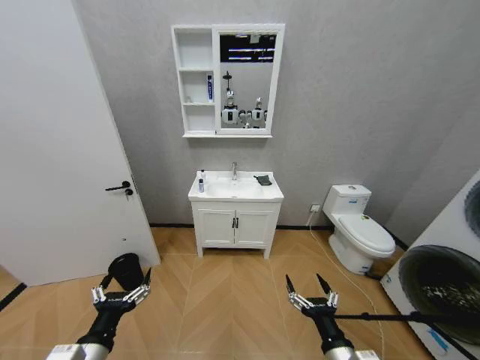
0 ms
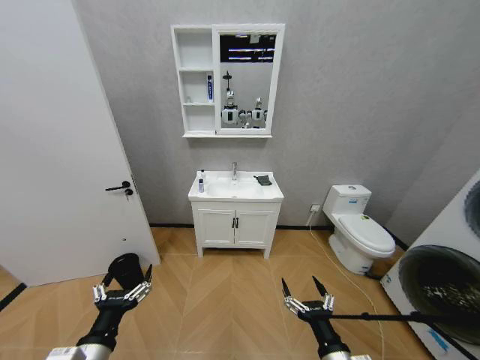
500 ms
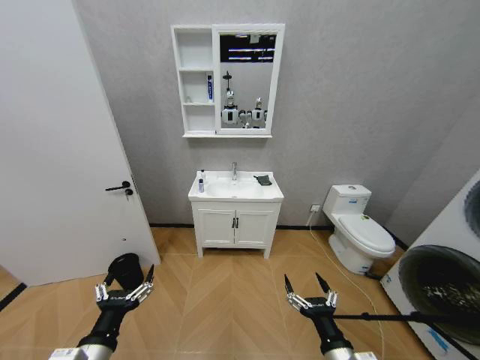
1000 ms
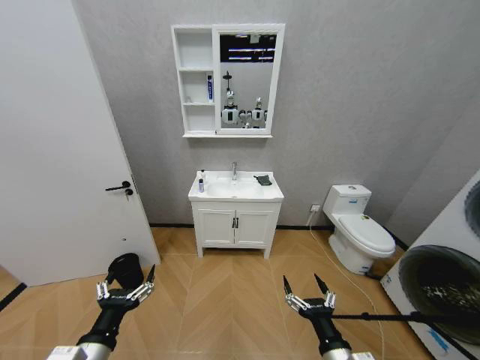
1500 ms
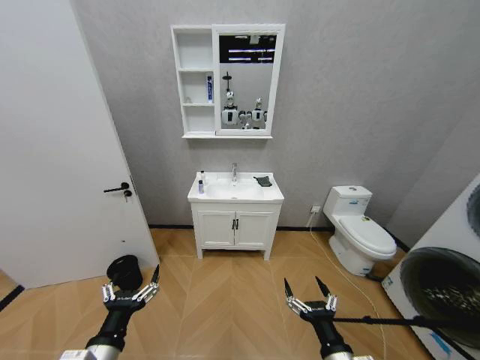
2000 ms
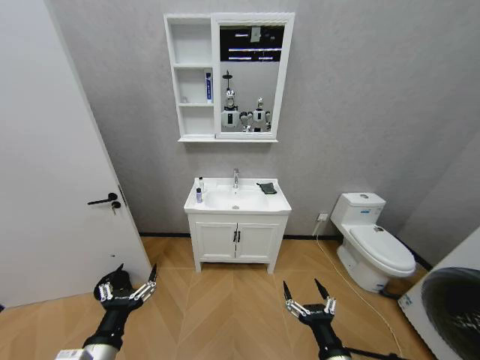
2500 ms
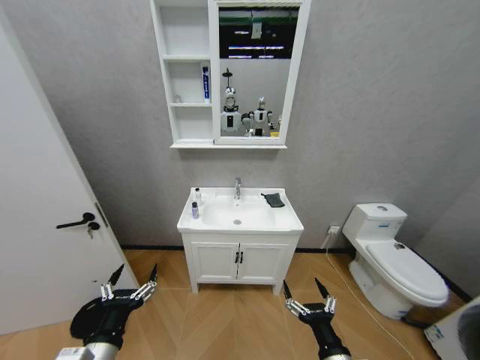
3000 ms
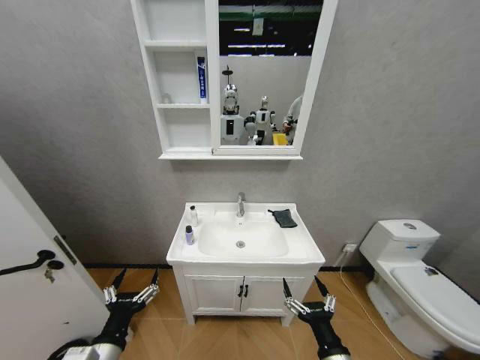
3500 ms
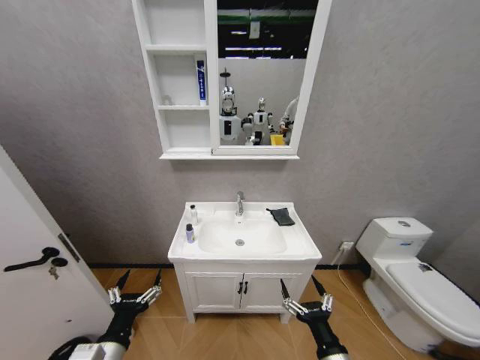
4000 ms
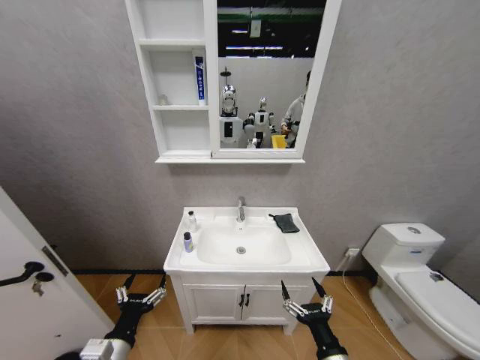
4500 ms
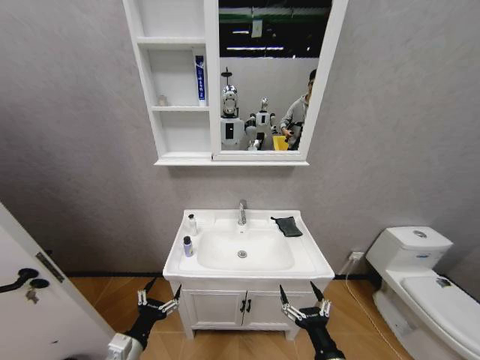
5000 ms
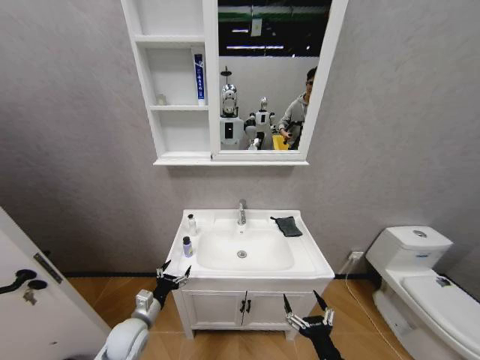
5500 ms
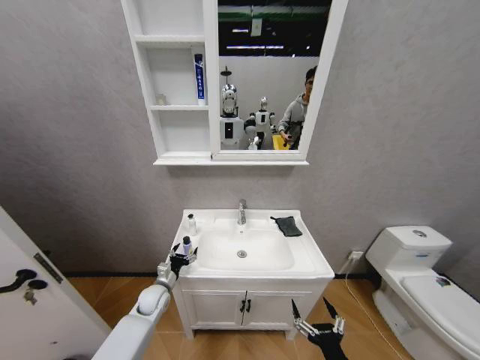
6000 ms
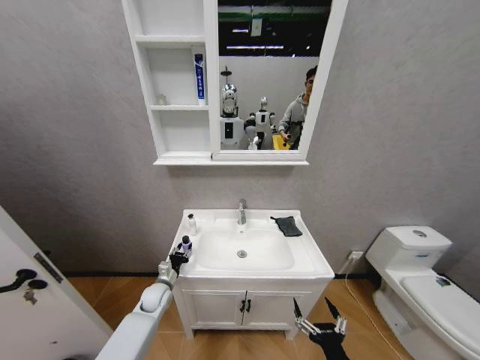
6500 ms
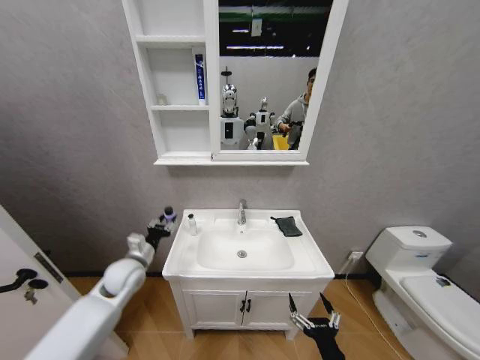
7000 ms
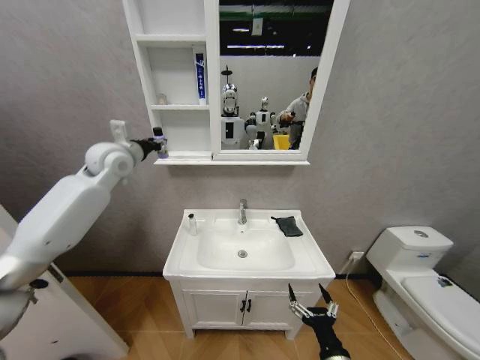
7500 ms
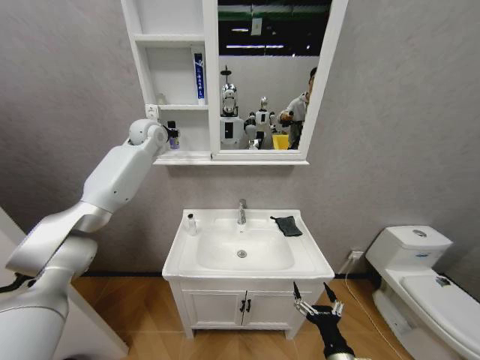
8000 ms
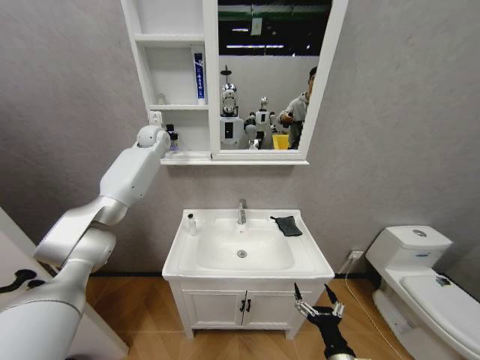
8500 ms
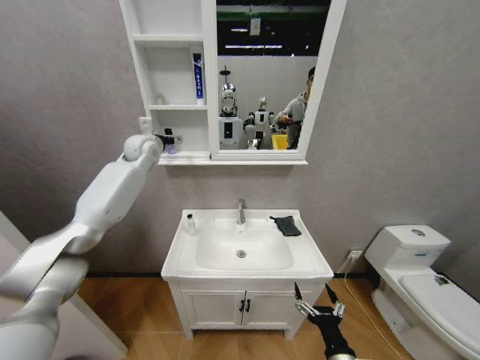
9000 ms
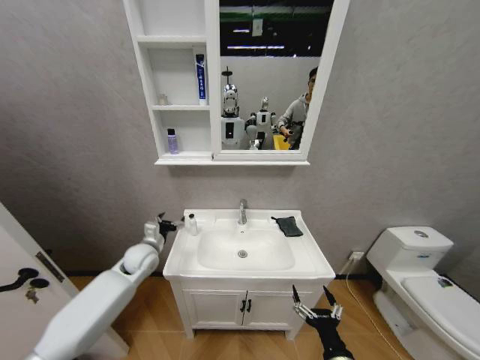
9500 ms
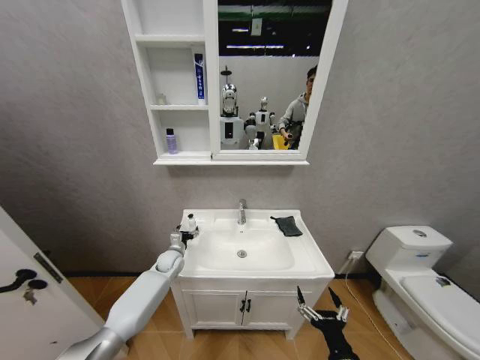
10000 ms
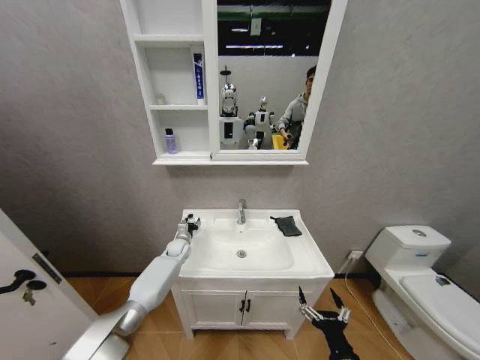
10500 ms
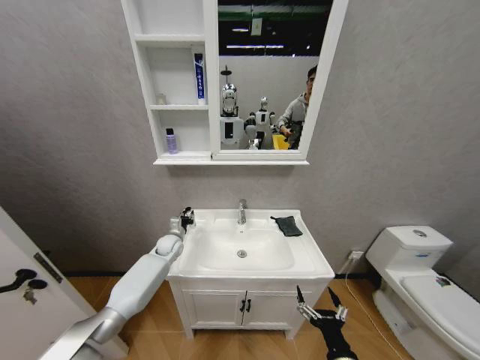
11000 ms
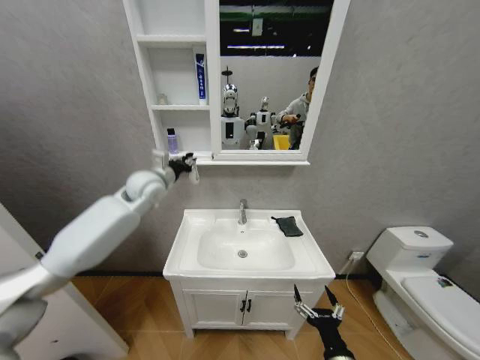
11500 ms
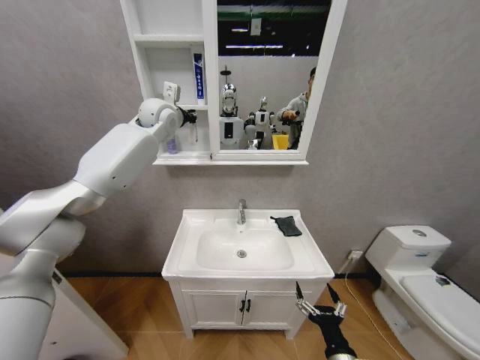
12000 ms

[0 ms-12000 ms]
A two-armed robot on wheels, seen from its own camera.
Task of the whole recording: Move facial cleanser and shampoo from washbasin to cabinet, then wipe washbasin with towel.
4000 ms to 6000 ms: The left gripper travels forward and downward by approximately 30 cm.
6000 ms to 8000 ms: The left gripper is displaced upward and forward by approximately 50 cm, and closes its fingers.
8000 ms to 10000 ms: The left gripper is displaced downward by some 50 cm, and opens its fingers.
10000 ms to 12000 ms: The left gripper is displaced upward by approximately 50 cm, and closes up.

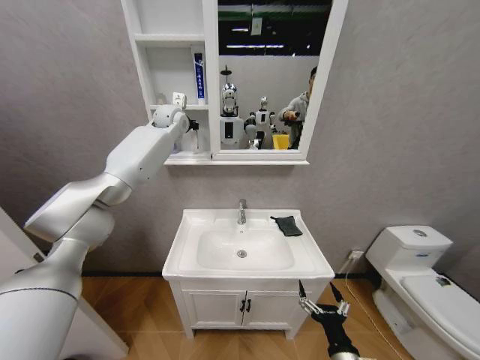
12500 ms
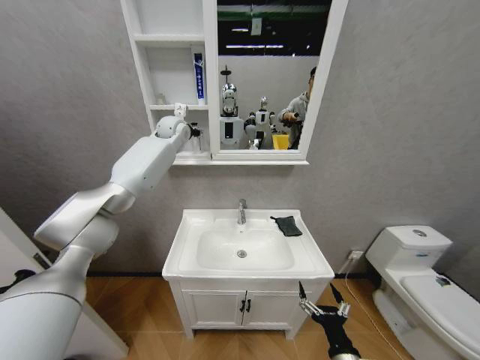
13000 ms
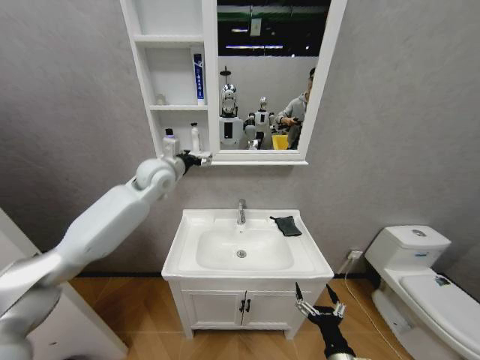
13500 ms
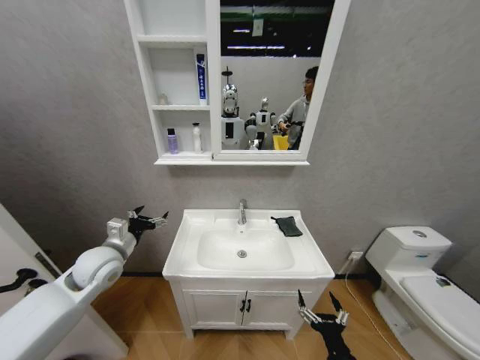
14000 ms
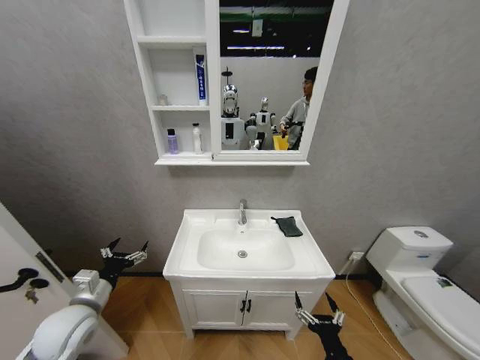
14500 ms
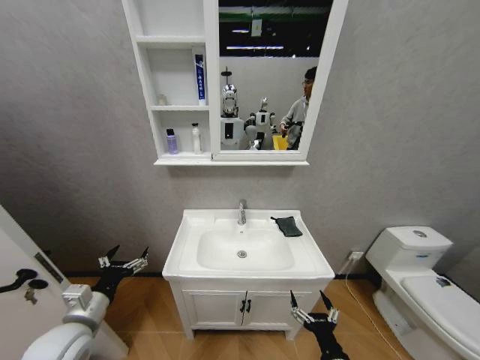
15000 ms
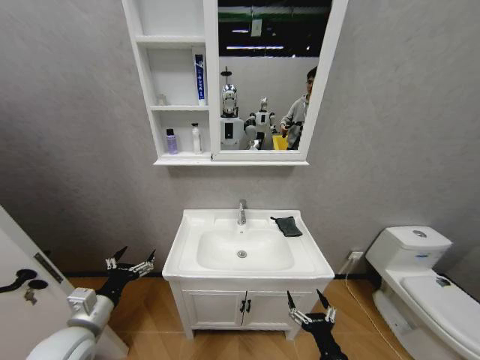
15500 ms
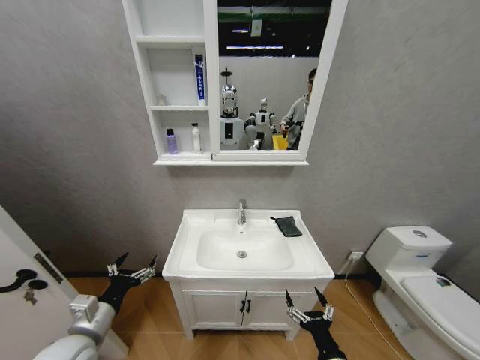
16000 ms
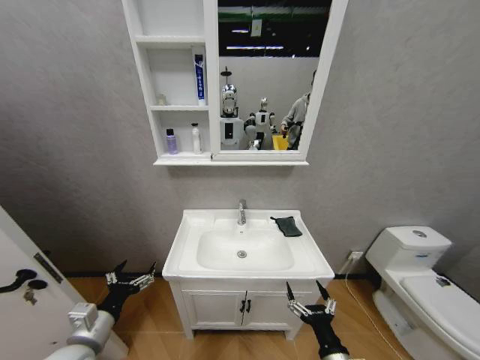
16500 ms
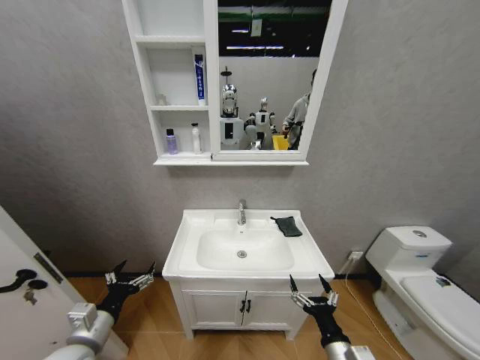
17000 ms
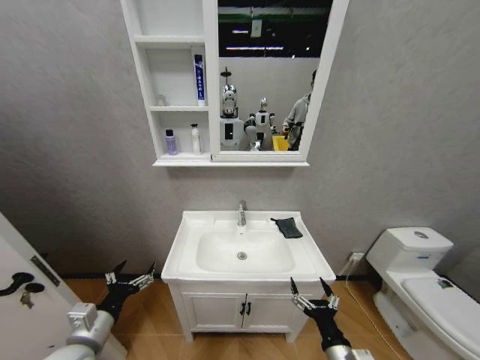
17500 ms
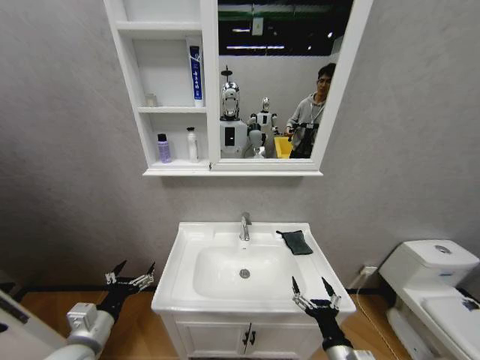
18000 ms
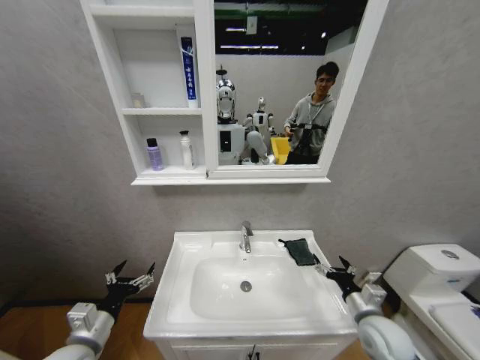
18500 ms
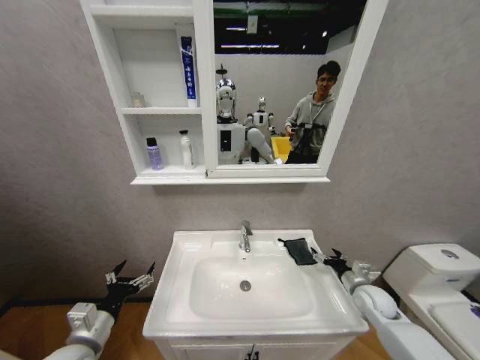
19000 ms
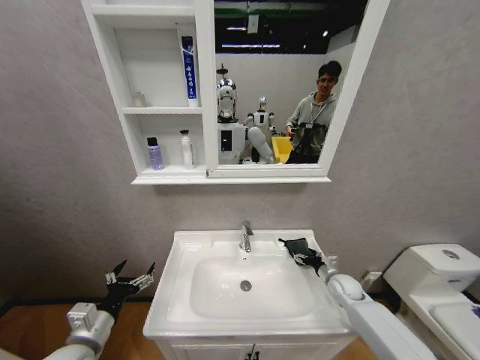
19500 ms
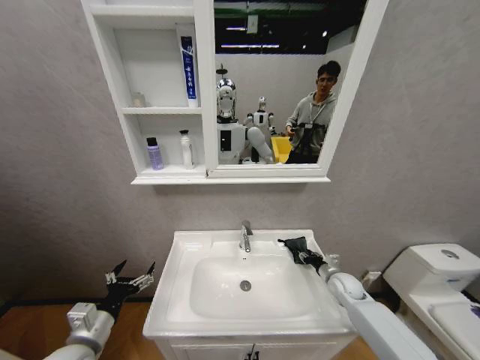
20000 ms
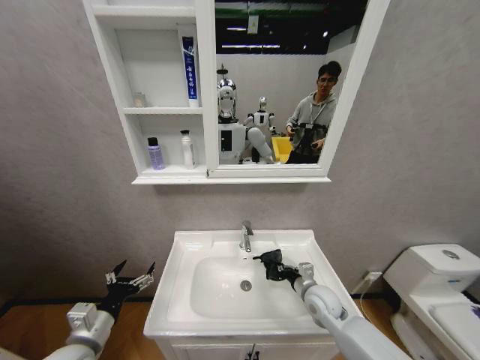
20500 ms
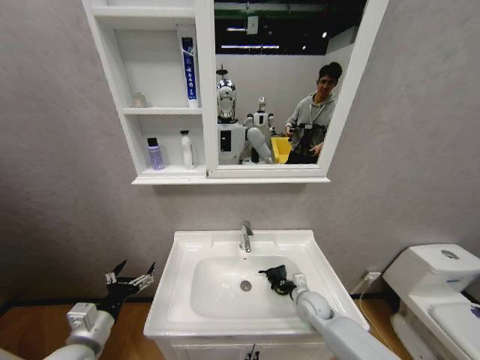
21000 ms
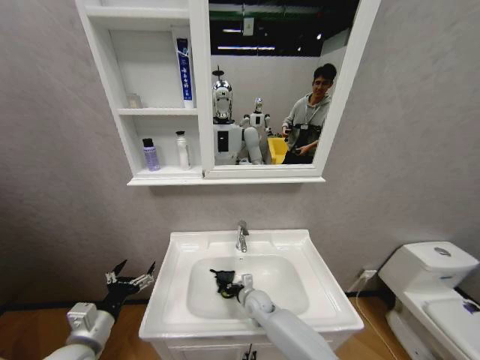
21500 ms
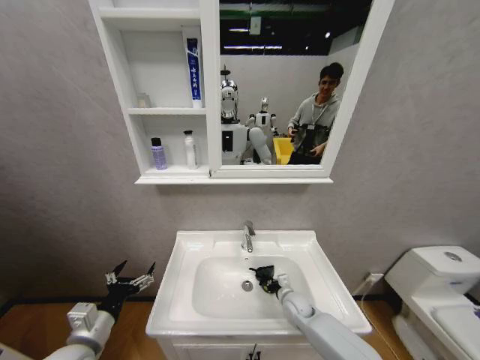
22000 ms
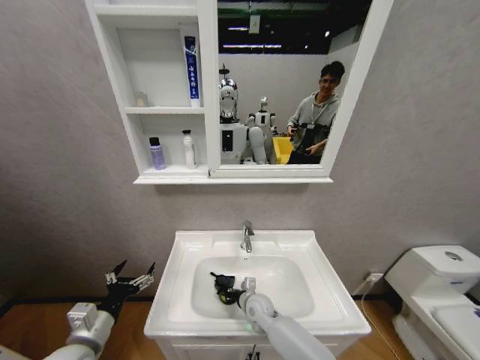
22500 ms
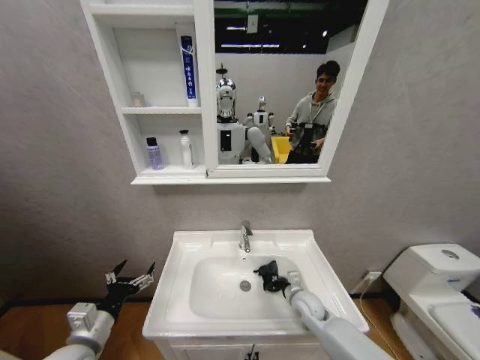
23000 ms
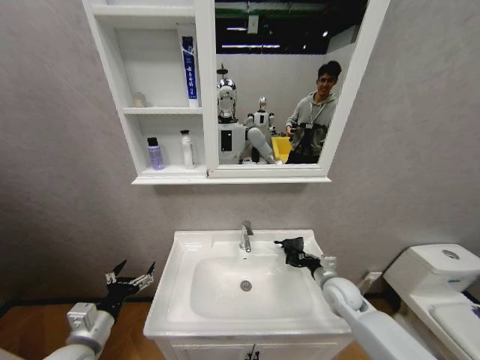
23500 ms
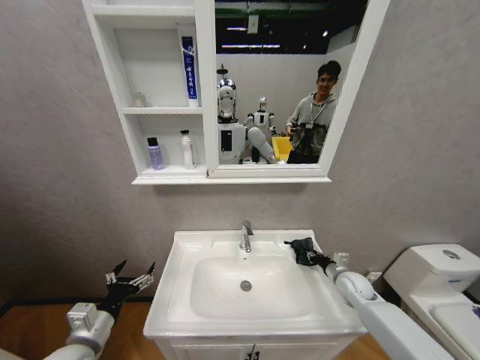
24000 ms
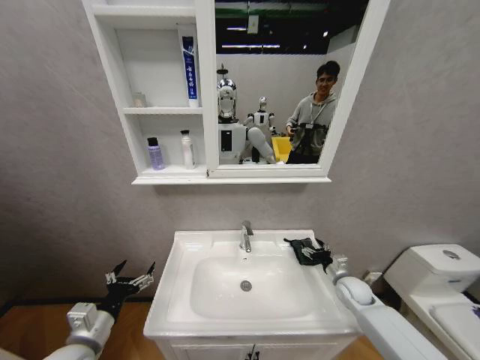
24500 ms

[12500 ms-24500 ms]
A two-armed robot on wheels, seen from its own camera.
Task of the whole recording: Move facial cleanser and shampoo from washbasin to cabinet, then wipe washbasin with towel.
12500 ms to 14500 ms: The left gripper moves backward, downward and to the left, about 60 cm, and opens.
14500 ms to 16500 ms: The left gripper goes some 5 cm backward.
16500 ms to 18500 ms: The right gripper travels forward and to the right by roughly 20 cm.
18500 ms to 20500 ms: The right gripper heads to the left and forward, covering approximately 15 cm, and closes up.
20500 ms to 22500 ms: The right gripper goes left and right, approximately 20 cm each way, reversing 2 times.
22500 ms to 24500 ms: The right gripper is displaced to the right by approximately 30 cm, and opens up.

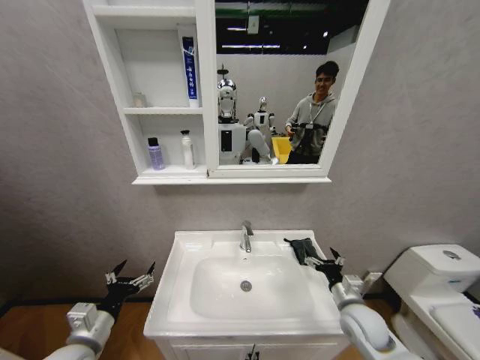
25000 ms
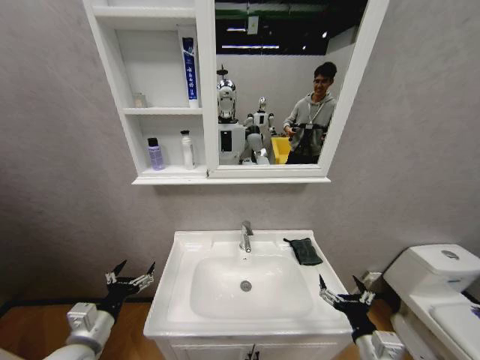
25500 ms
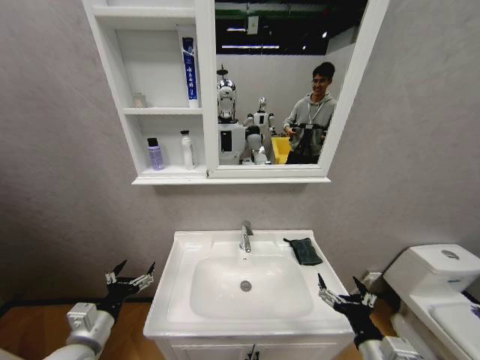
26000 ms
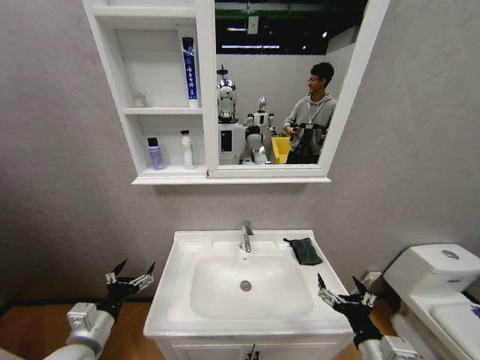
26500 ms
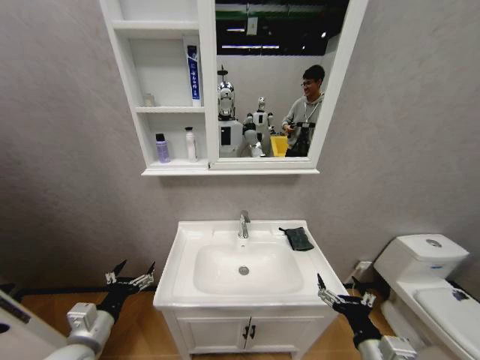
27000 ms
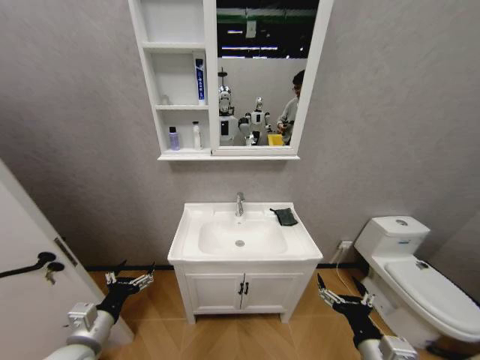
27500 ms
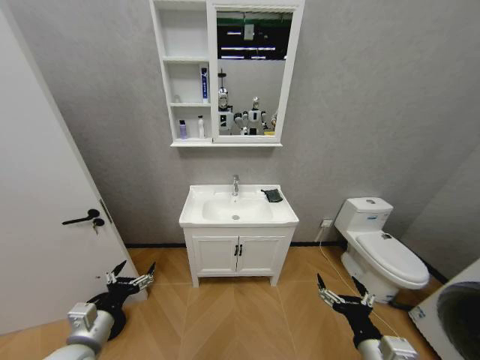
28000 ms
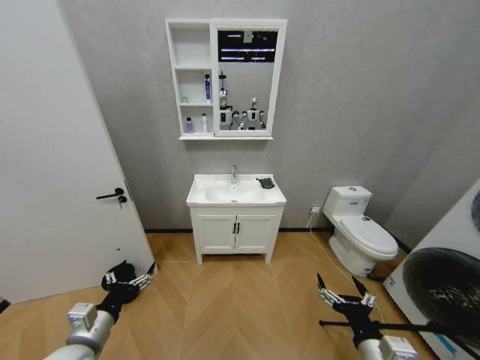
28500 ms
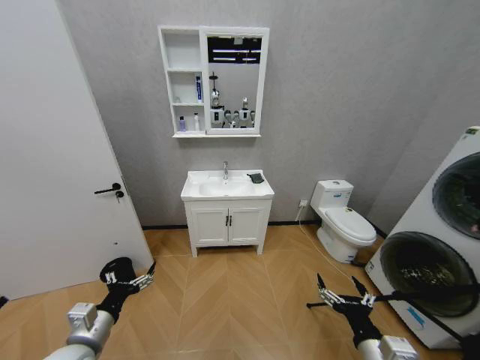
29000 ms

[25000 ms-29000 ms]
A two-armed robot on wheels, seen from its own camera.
Task of the whole recording: Move facial cleanser and shampoo from washbasin to cabinet, then wipe washbasin with towel.
25000 ms to 27000 ms: The right gripper heads backward and upward, covering approximately 15 cm.
